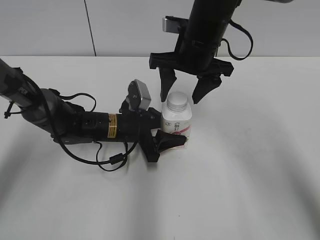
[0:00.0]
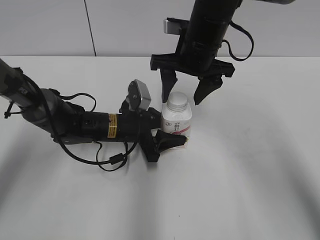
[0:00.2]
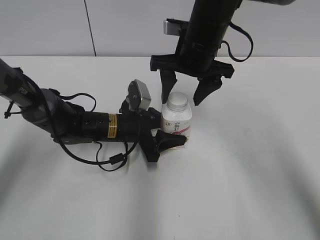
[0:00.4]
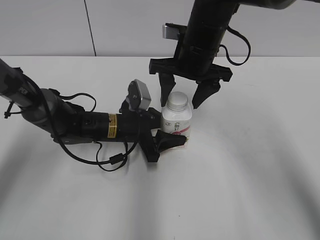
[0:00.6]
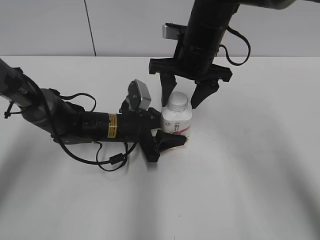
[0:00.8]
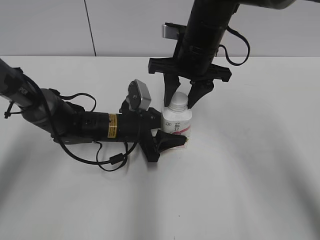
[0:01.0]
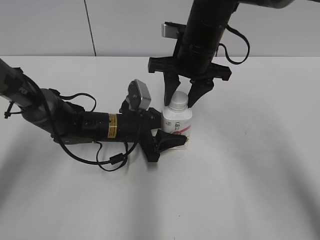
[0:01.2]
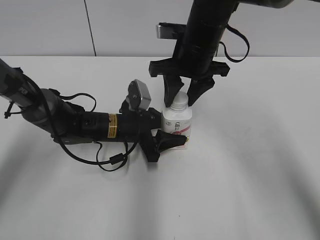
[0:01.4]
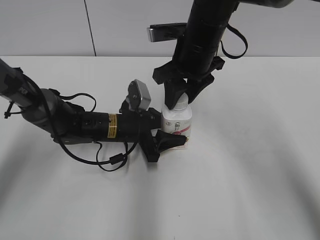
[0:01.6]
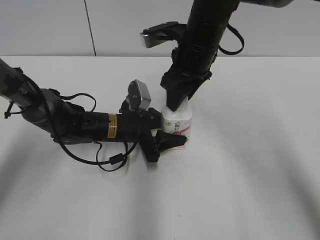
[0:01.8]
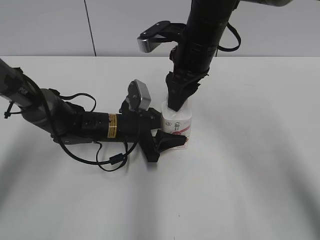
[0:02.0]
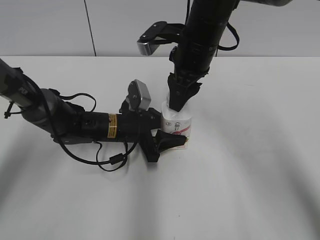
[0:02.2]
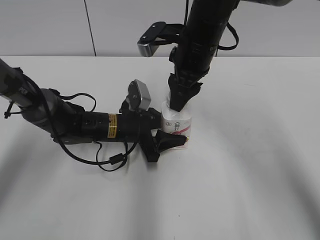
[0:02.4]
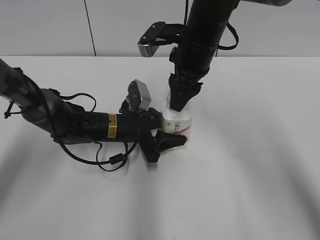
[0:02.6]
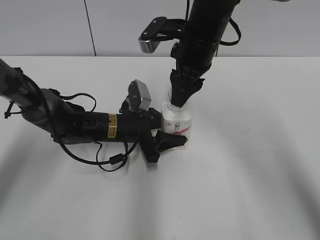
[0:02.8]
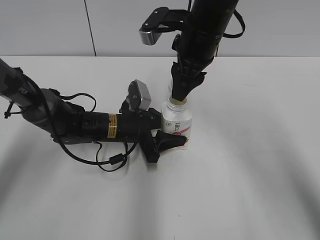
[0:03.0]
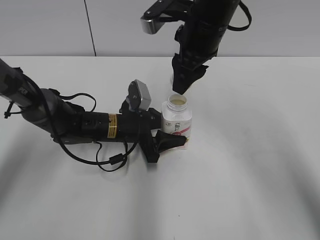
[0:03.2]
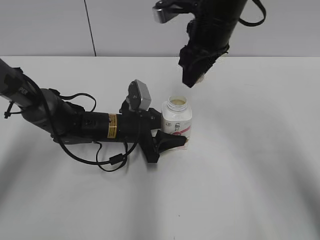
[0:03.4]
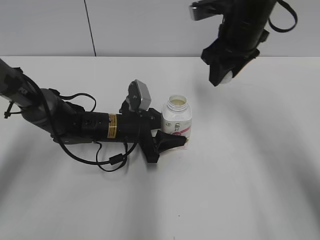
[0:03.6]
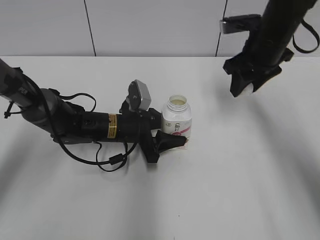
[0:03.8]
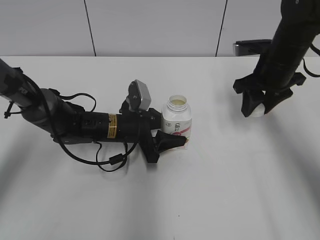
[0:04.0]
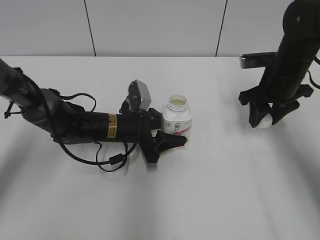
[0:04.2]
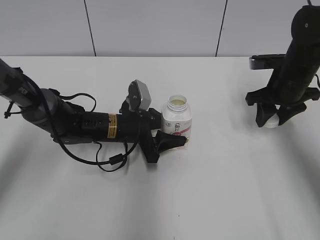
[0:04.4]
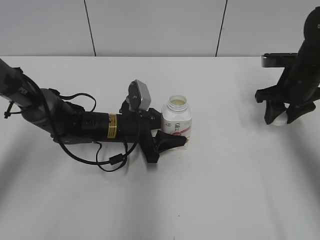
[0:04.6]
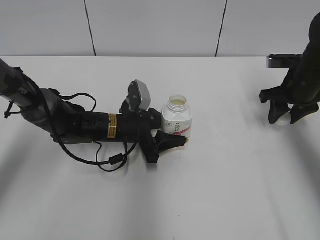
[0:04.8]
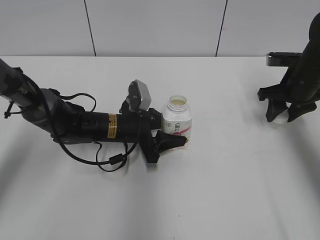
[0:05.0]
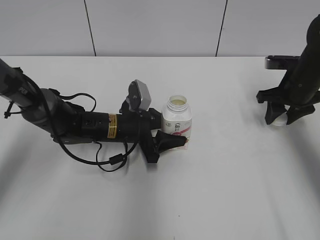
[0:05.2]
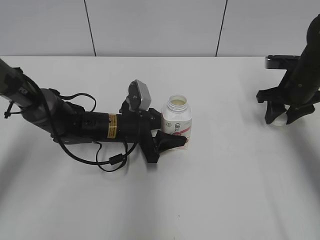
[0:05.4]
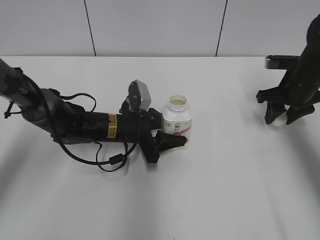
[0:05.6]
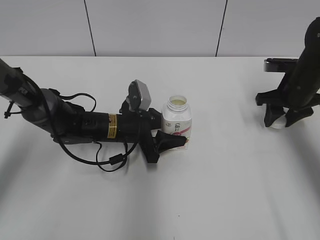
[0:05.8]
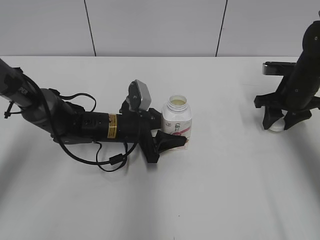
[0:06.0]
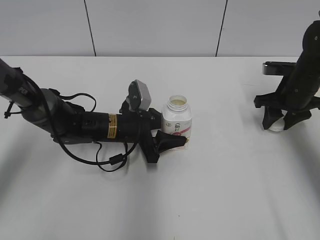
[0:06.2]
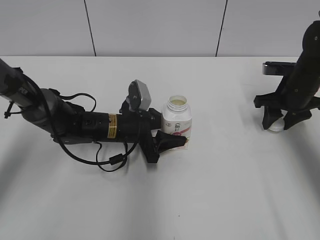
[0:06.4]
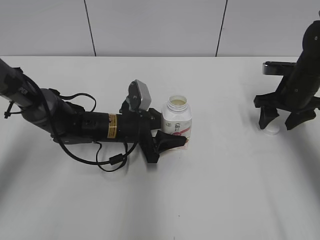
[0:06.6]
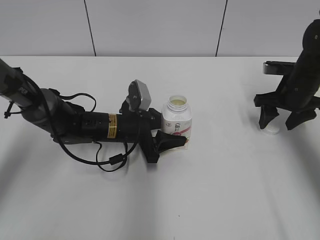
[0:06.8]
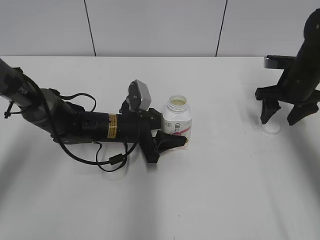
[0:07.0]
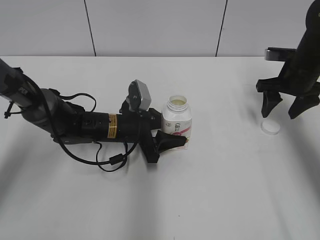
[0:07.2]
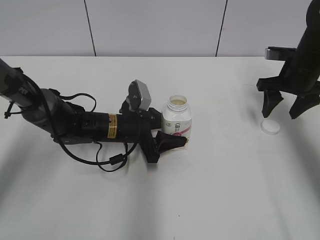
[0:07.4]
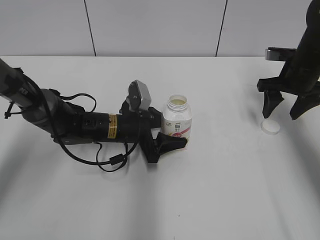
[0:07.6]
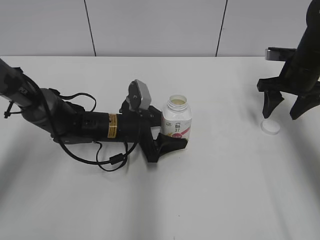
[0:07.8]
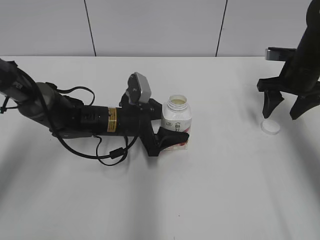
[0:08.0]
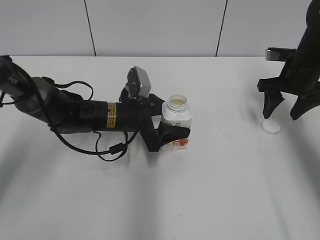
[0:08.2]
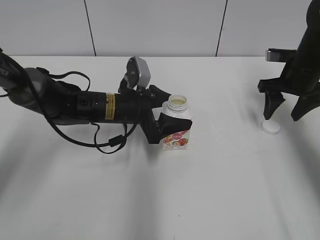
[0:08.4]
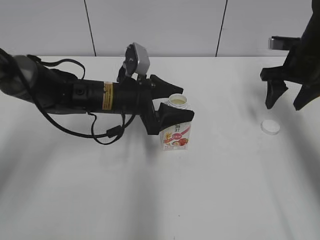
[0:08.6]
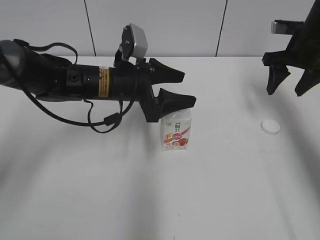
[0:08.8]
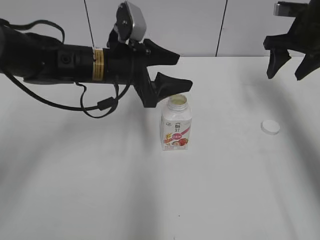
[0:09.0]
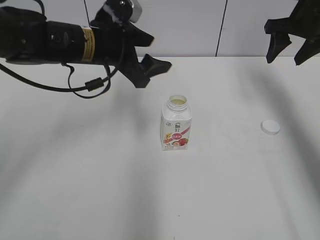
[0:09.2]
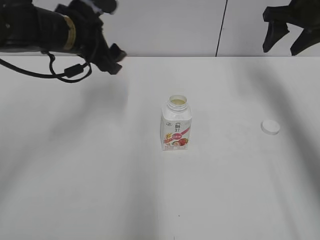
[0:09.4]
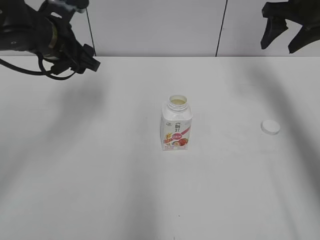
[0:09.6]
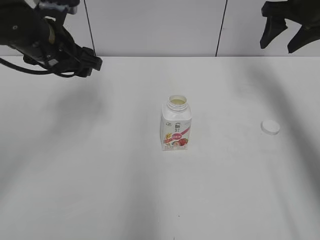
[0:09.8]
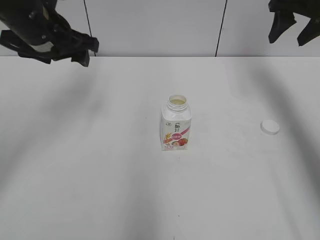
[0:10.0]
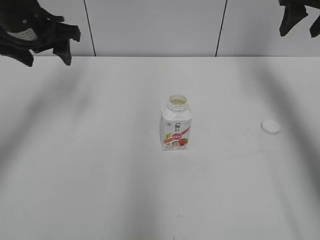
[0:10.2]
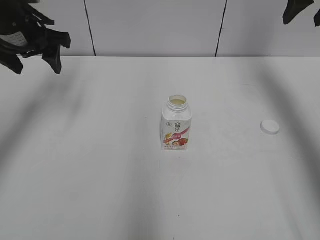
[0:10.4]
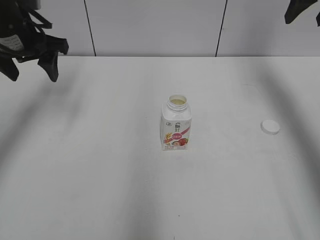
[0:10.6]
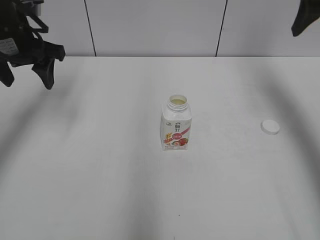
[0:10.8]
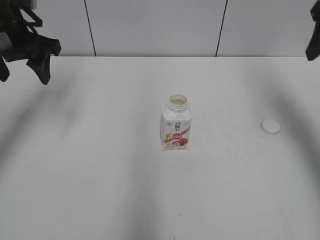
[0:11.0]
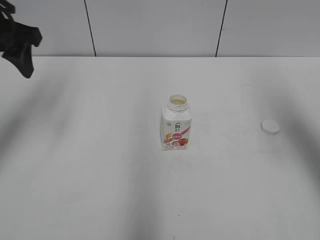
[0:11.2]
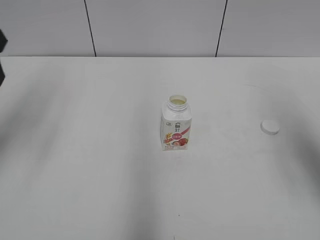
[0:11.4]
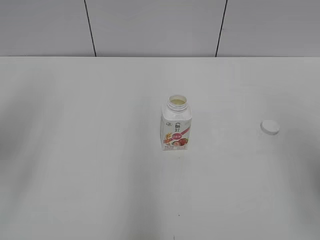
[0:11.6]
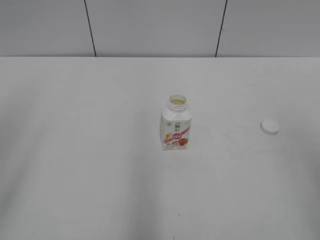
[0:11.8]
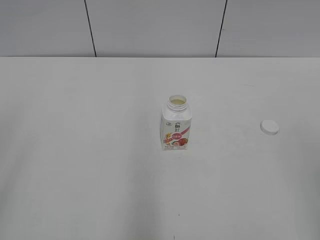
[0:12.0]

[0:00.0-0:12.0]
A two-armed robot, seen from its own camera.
Step, 0:03.0 to 0:06.4: Place the bottle cap on the right.
0:00.0 to 0:01.6: The right gripper closes up.
0:03.0 to 0:04.4: The right gripper moves to the right and downward, about 20 cm.
0:04.4 to 0:06.0: There are only small adjustments of the grippers.
0:06.0 to 0:07.6: The right gripper opens up.
0:07.6 to 0:09.0: The right gripper is displaced upward by roughly 5 cm. The left gripper heads upward, covering about 15 cm.
0:09.0 to 0:10.4: The right gripper heads upward, covering some 10 cm. The left gripper goes some 20 cm to the left and upward.
0:10.4 to 0:12.0: Both grippers move backward, approximately 35 cm.

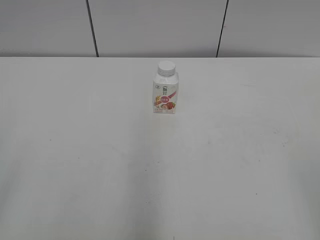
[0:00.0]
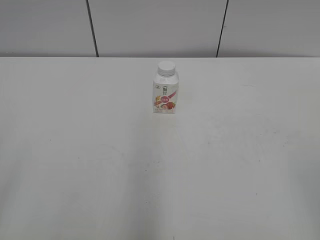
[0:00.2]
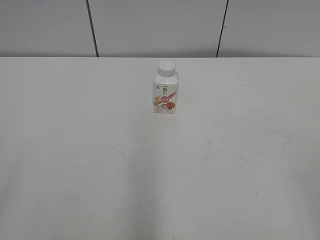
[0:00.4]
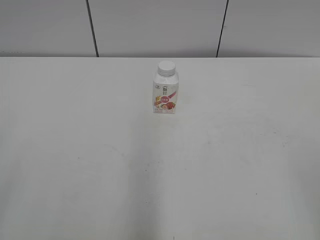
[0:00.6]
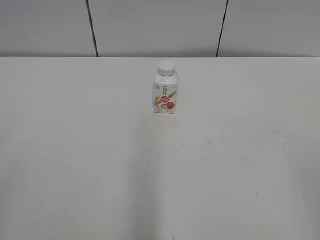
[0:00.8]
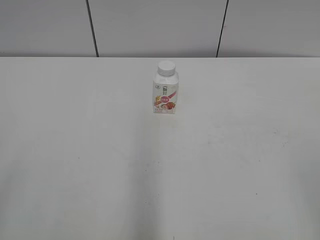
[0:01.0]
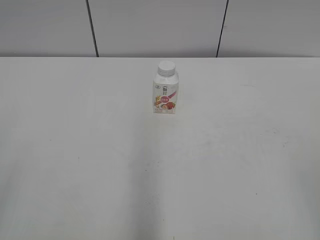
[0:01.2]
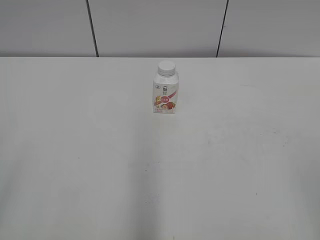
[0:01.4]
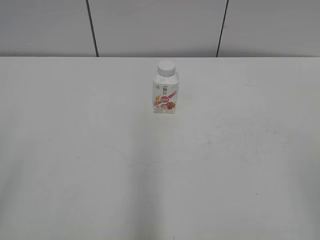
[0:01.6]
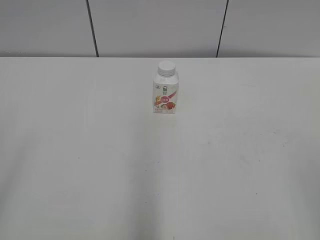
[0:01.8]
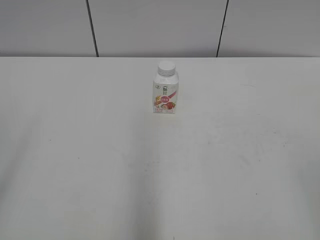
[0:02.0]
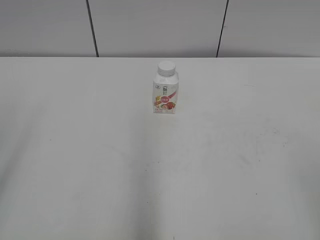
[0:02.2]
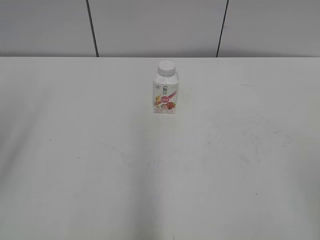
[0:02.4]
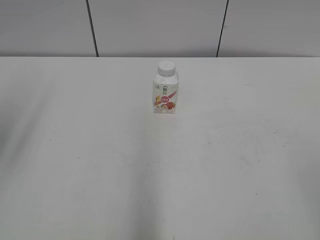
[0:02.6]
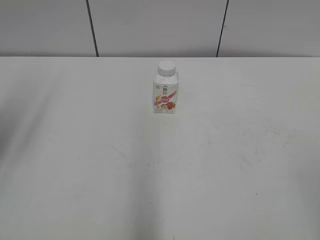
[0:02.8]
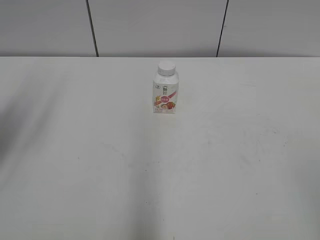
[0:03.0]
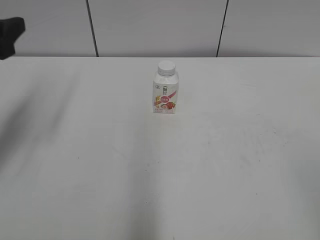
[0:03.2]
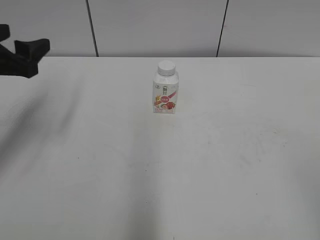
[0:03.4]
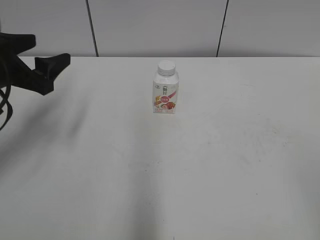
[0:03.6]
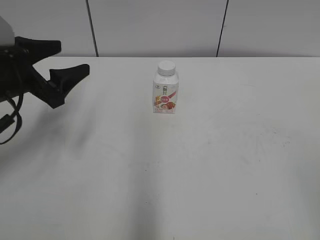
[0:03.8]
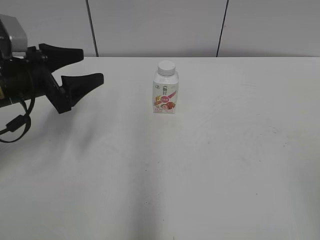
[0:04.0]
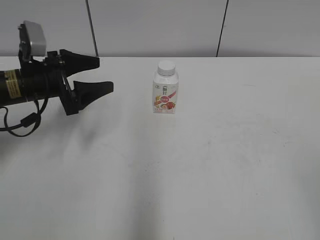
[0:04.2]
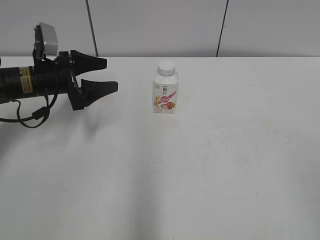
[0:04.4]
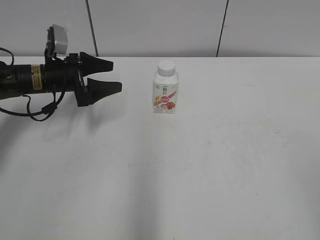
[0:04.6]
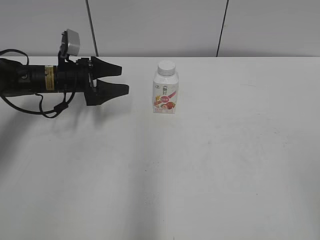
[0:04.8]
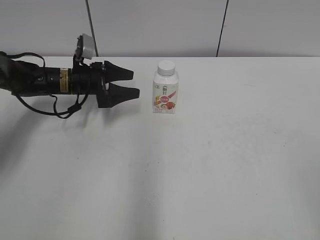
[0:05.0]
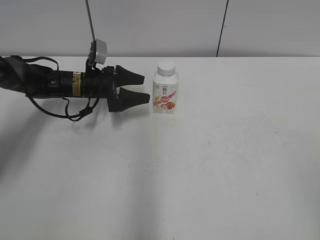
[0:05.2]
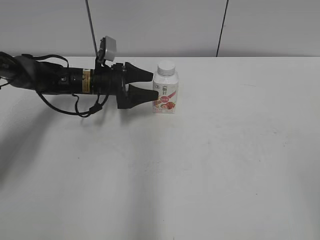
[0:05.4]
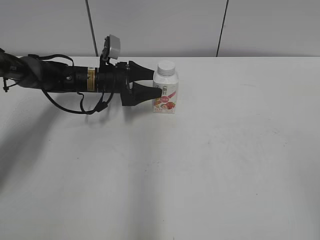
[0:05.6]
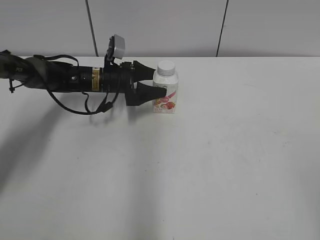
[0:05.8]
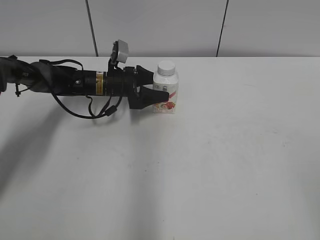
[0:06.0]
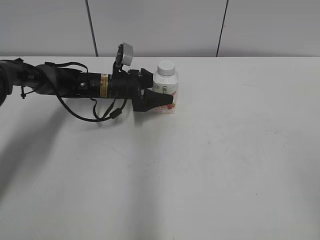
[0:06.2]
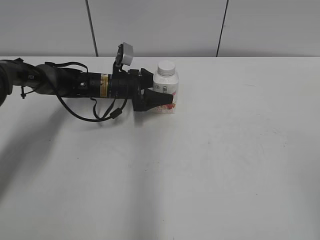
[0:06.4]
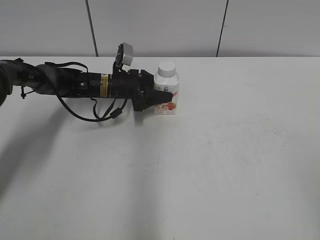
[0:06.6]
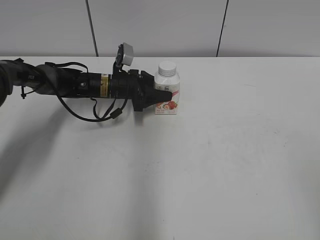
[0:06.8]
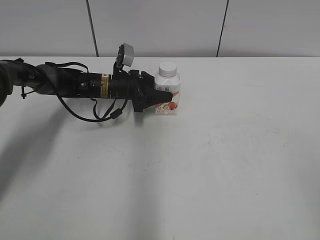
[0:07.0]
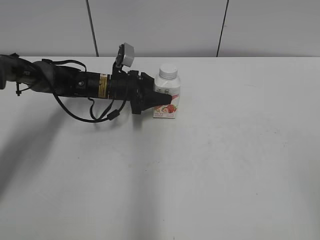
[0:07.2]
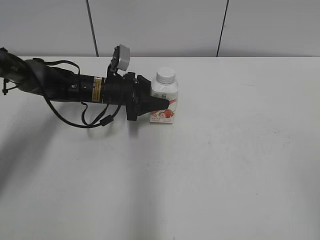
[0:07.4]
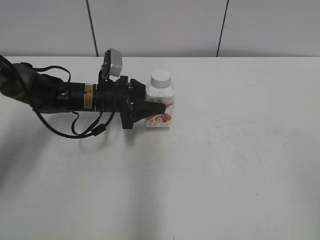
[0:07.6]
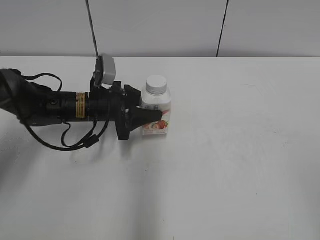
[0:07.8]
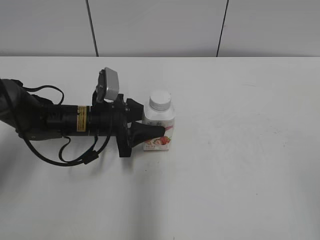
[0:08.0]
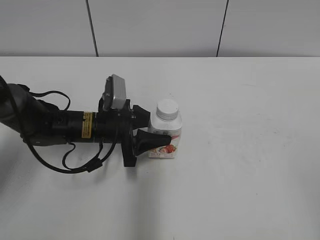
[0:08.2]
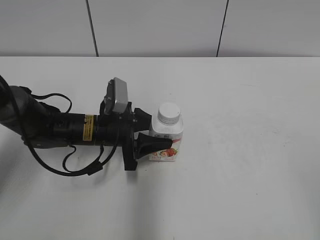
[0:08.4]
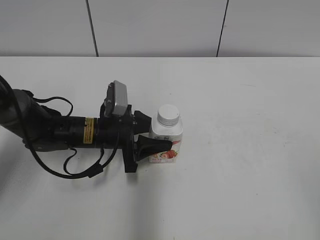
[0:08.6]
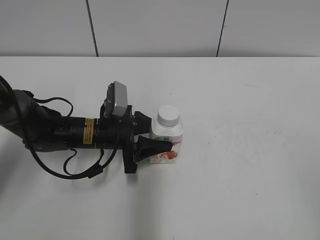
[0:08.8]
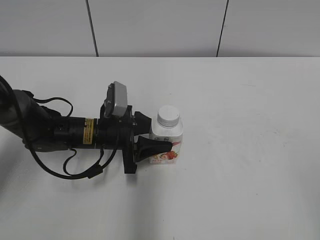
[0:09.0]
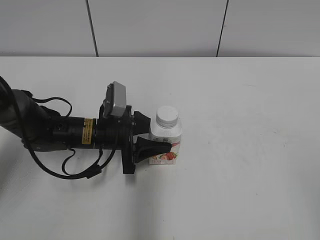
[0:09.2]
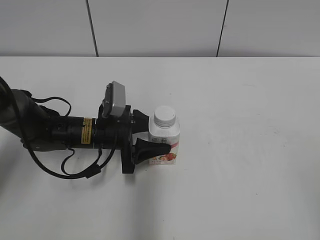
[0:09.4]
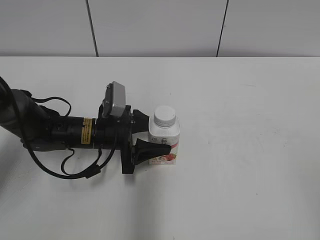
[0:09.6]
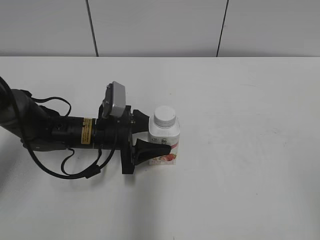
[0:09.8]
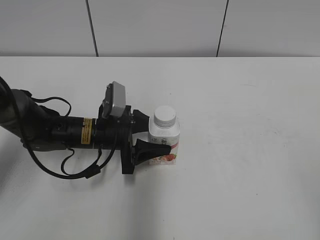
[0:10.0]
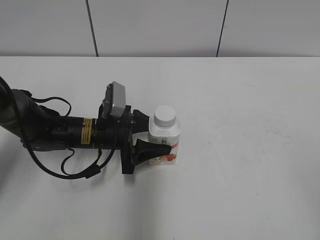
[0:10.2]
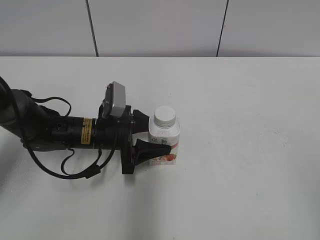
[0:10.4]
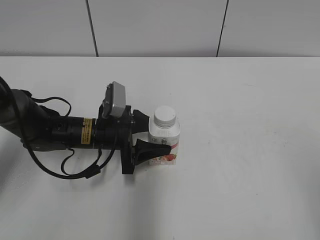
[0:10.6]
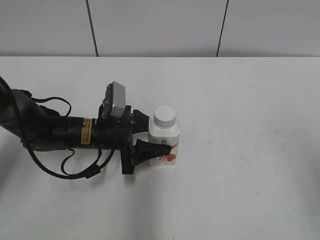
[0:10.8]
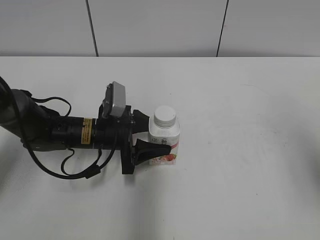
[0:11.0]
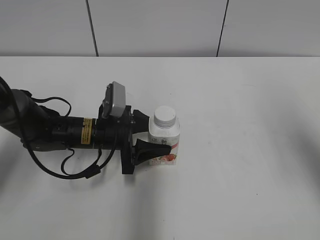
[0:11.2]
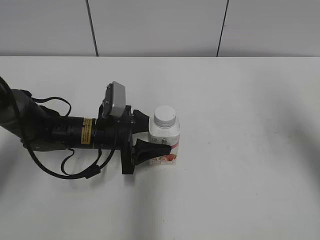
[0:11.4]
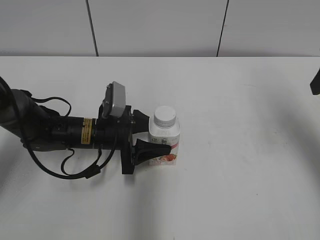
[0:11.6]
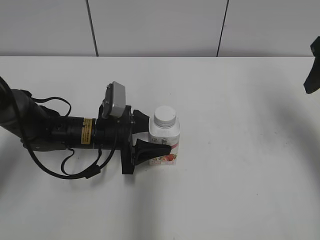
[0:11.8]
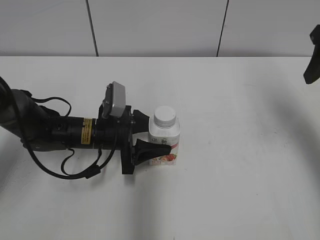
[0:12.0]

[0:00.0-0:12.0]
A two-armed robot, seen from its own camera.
Step, 0:00.0 to 0:06.8: Grab the Yili Changqing with the left hand.
Step, 0:07.0 to 0:10.2: Move the Yili Changqing from left to right.
0:01.6 to 0:03.0: The left gripper moves forward, approximately 25 cm.
0:03.0 to 0:04.4: The left gripper is displaced downward, forward and to the right by approximately 25 cm.
0:04.4 to 0:06.0: The left gripper moves forward, to the right and downward, approximately 15 cm.
0:06.0 to 0:07.6: The left gripper moves backward, some 5 cm, and closes up.
0:07.6 to 0:09.0: The left gripper heads backward, covering roughly 10 cm.
0:09.0 to 0:10.4: The left gripper opens up.
0:10.4 to 0:12.0: The right gripper shifts approximately 30 cm forward.
